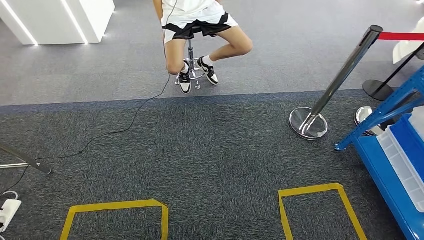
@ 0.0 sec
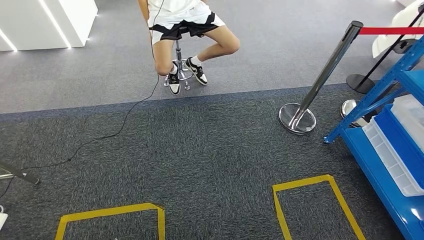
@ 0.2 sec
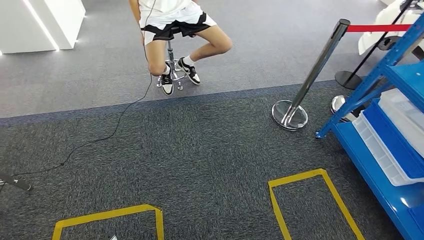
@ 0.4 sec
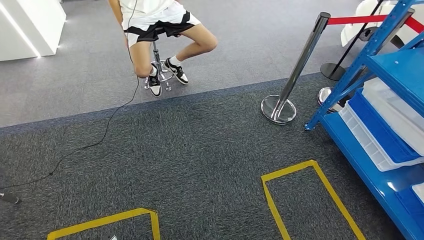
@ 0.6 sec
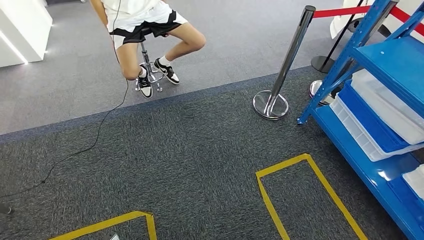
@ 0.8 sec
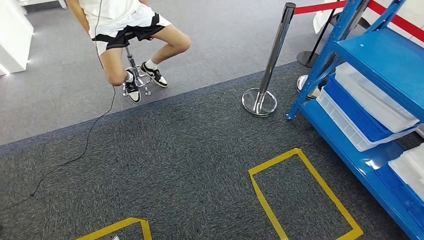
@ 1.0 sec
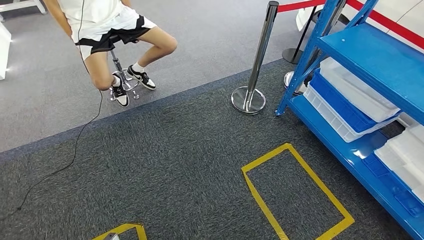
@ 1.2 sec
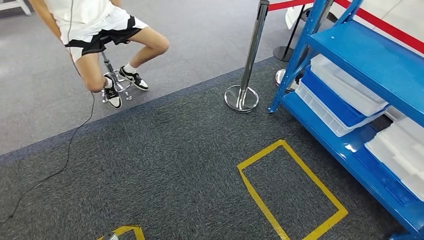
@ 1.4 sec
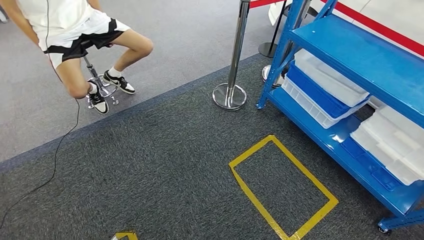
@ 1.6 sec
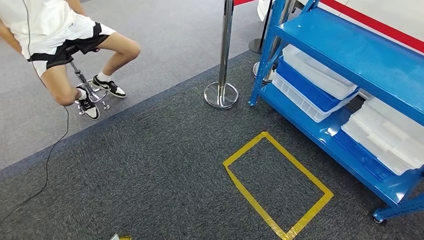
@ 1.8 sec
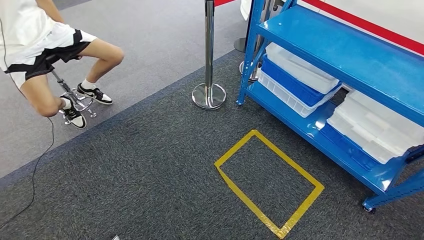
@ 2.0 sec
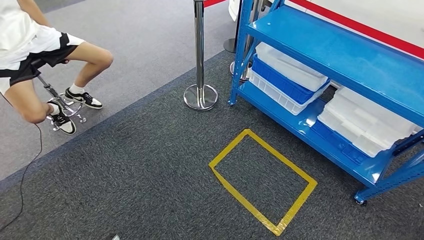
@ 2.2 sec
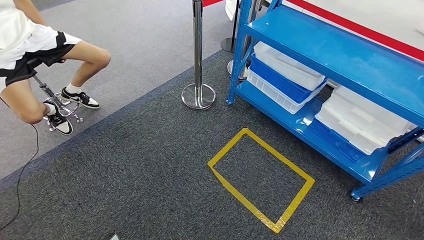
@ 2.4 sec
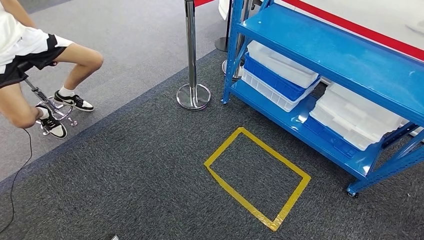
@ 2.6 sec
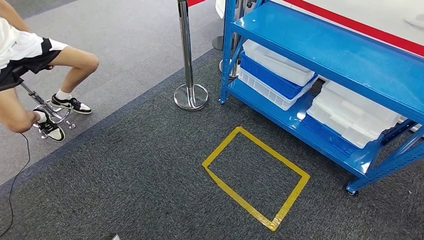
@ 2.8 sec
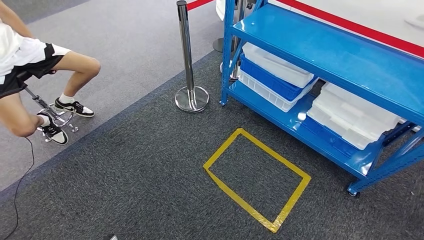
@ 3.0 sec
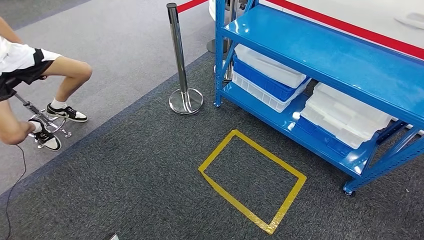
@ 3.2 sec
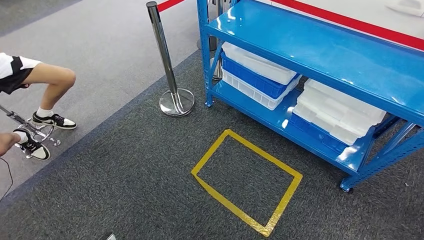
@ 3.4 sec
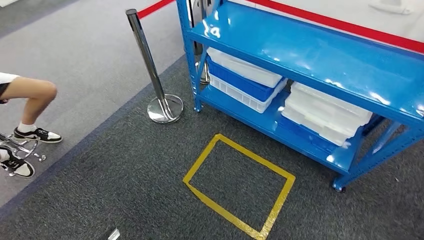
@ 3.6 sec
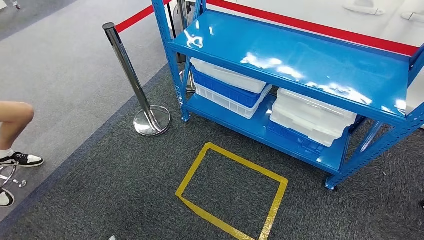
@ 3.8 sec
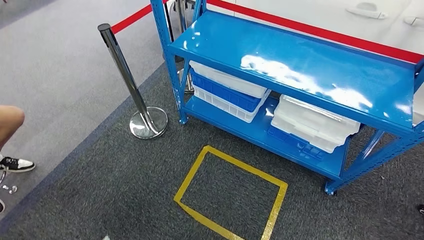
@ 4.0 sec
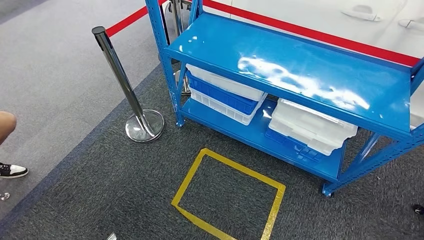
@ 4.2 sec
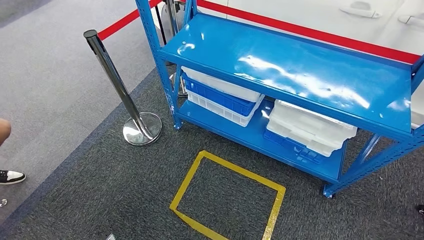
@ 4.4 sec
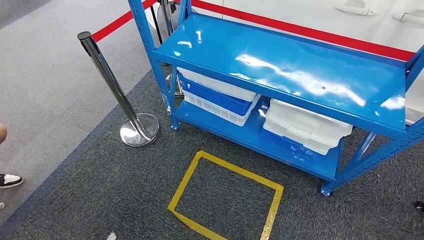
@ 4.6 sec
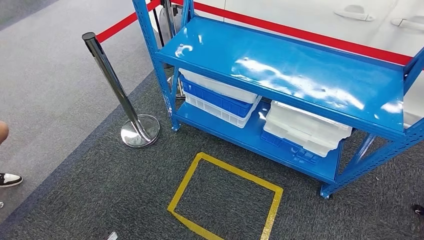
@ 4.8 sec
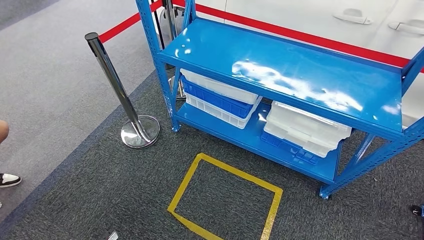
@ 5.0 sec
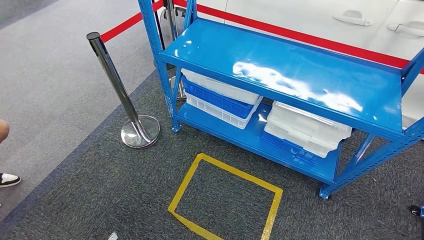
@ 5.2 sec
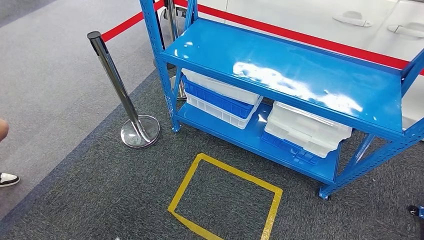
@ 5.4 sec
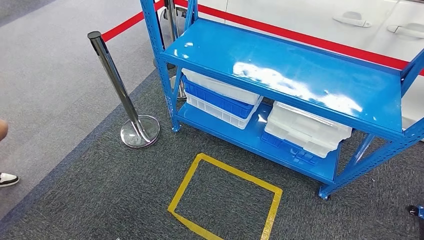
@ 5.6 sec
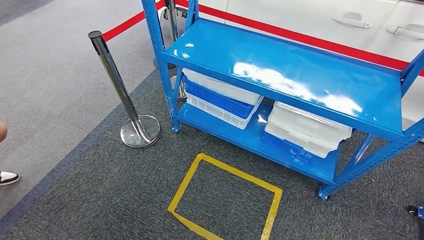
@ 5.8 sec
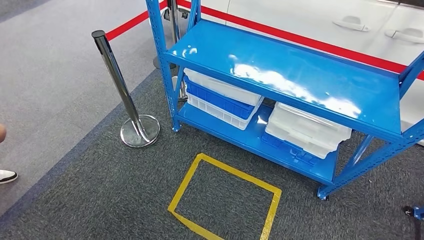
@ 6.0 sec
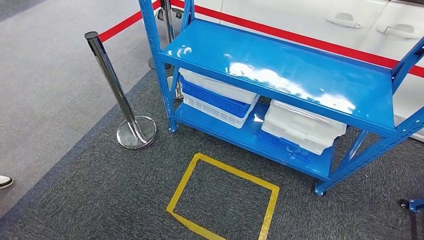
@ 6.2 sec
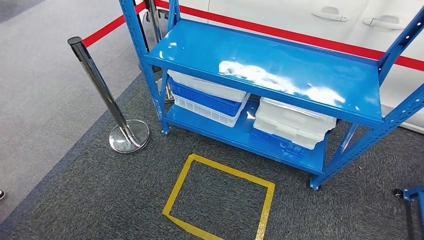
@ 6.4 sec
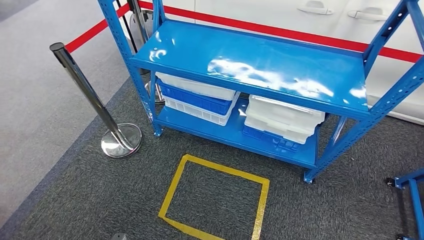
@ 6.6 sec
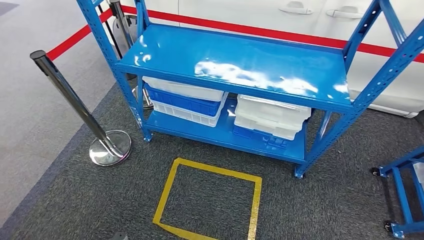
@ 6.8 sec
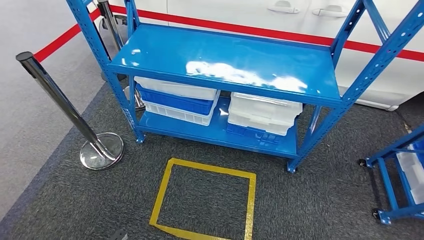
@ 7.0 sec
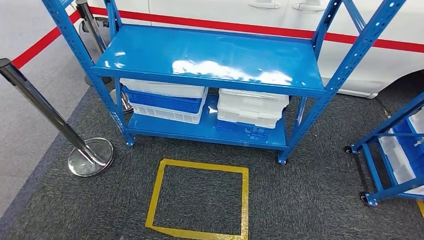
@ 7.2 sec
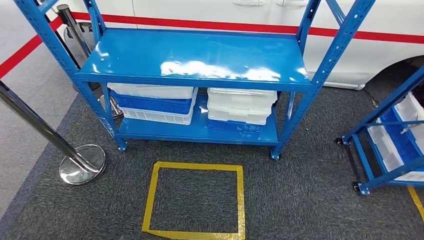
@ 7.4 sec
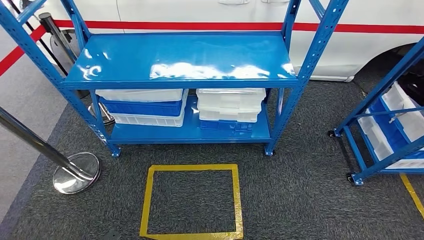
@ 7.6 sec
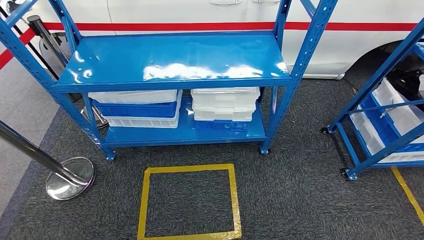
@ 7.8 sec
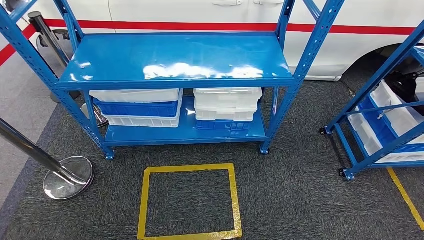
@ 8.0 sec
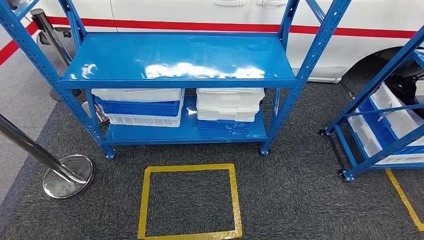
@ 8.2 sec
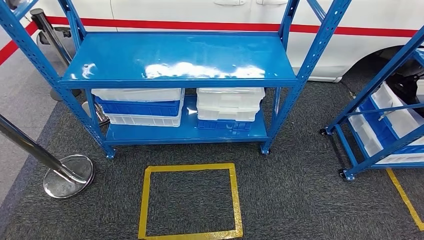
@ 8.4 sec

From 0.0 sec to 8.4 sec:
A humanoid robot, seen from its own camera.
Step, from 0.0 sec to 8.4 sec: Return to the initial position at the shelf.
